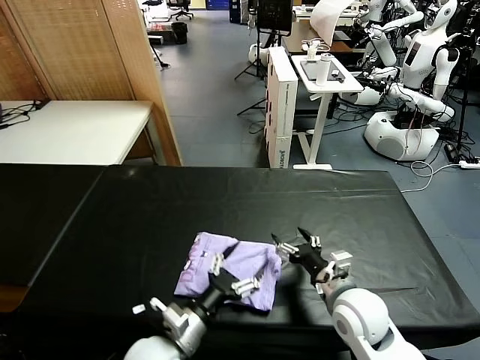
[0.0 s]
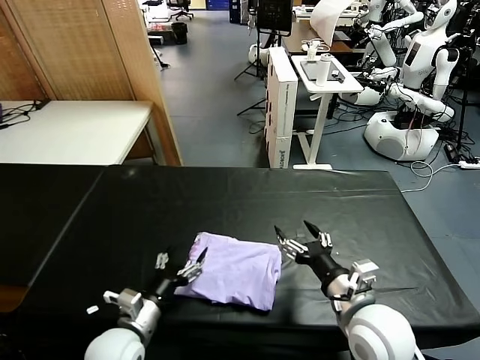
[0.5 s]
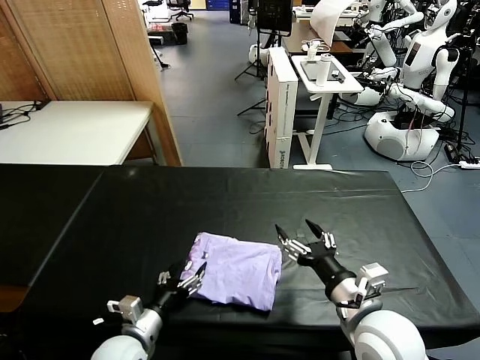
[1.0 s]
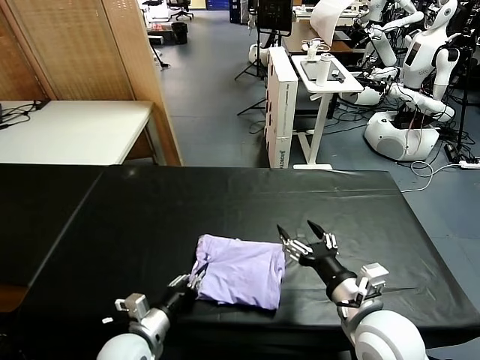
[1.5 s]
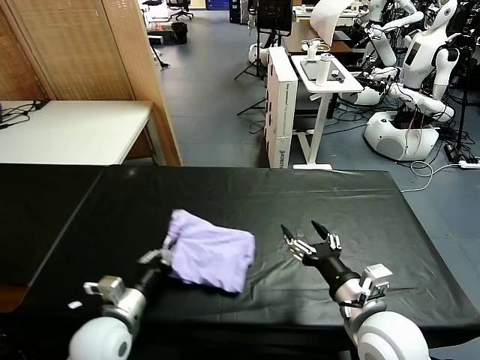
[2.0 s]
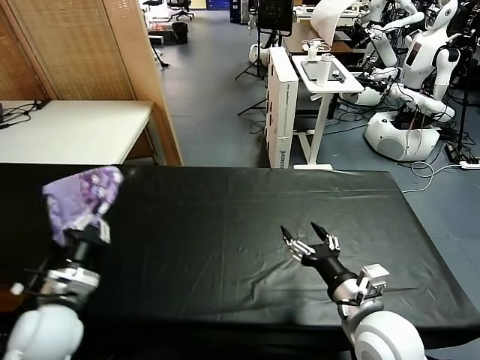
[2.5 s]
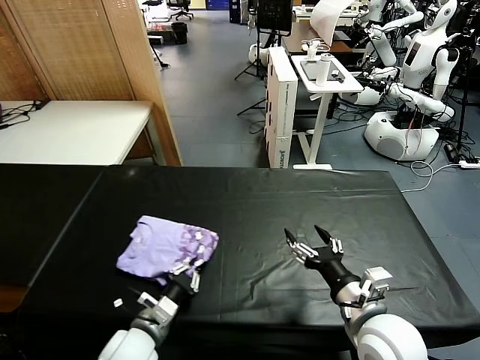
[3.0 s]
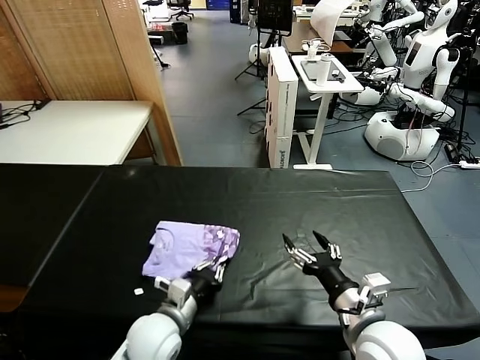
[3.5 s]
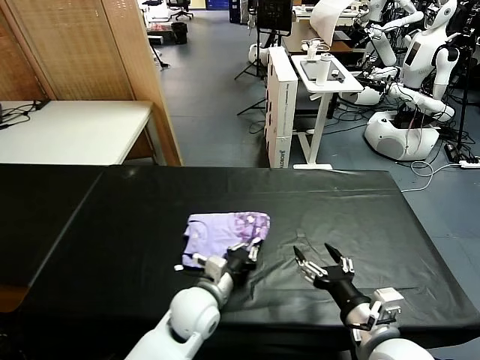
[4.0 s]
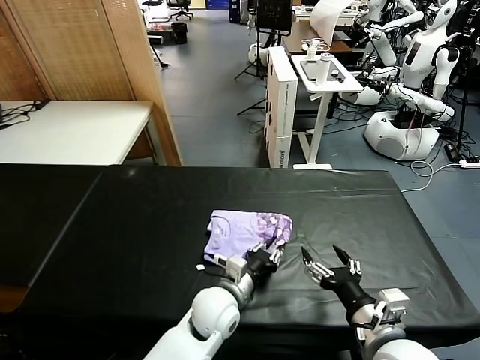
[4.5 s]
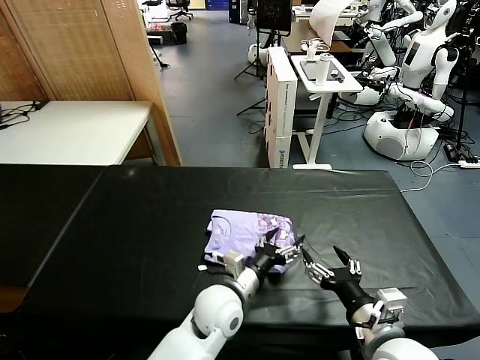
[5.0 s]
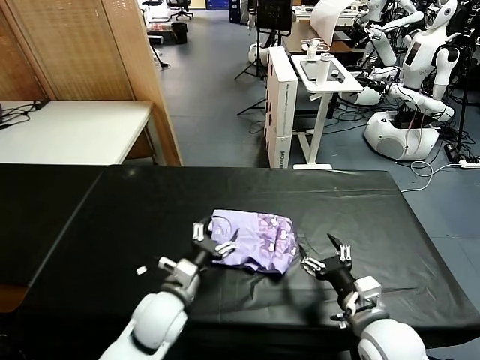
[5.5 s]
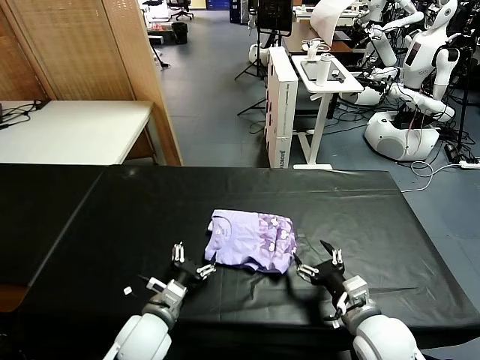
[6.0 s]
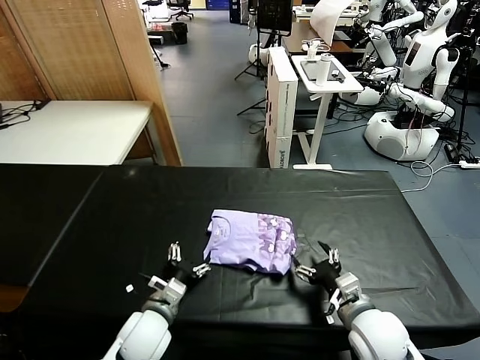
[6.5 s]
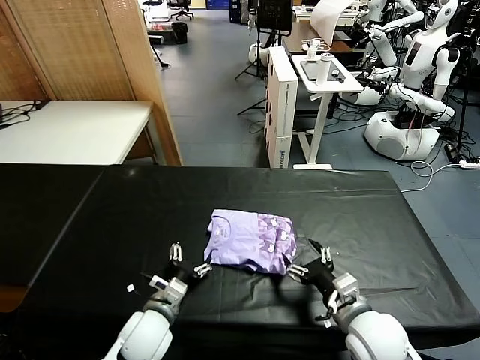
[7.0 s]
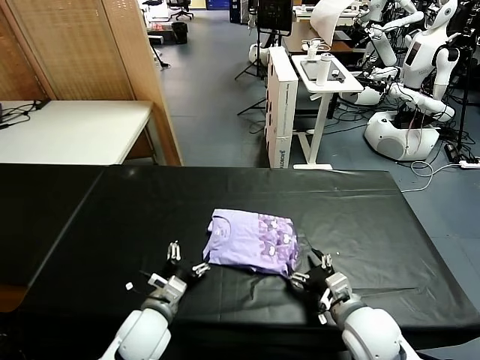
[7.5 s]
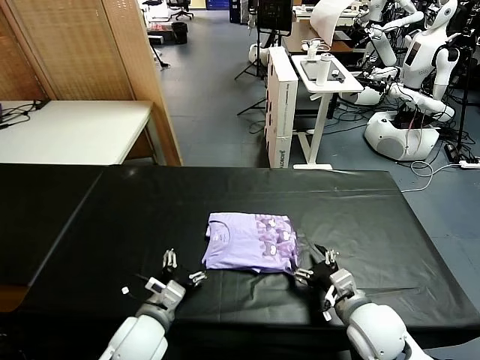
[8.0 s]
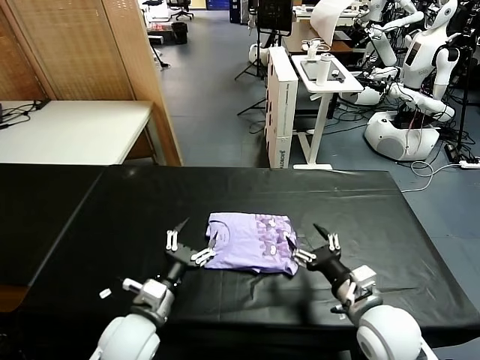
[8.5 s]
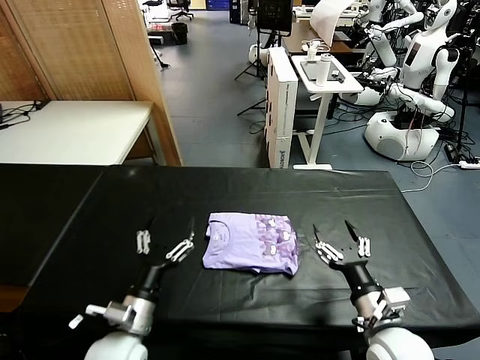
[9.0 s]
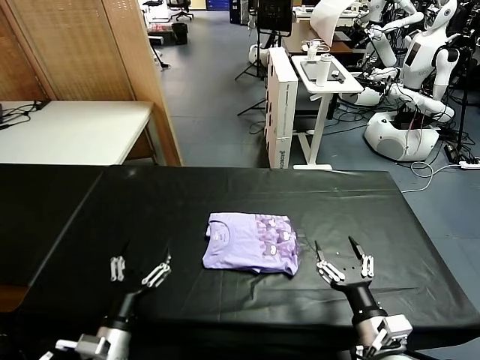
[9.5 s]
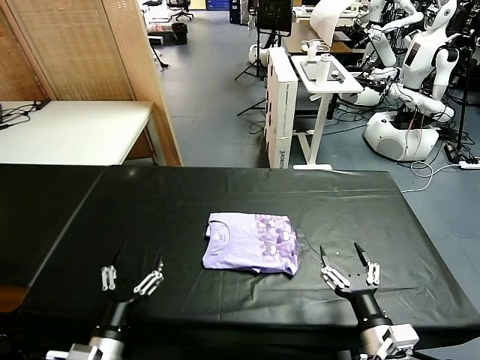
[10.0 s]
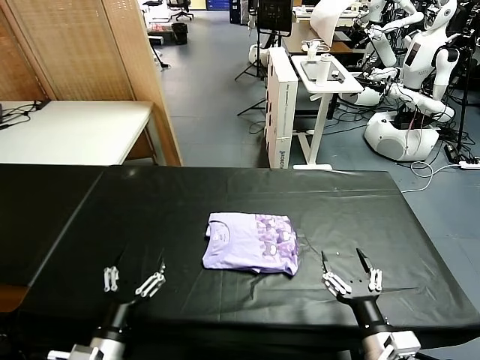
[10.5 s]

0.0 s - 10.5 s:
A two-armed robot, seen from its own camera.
Task of the whole recording: fold and organize the clothes.
Step, 0.5 s - 8.0 s: Flip the folded clothes over with left gripper.
0.0 s - 2.0 s: The left gripper goes some 10 cm to the left, and closes. The right gripper shifts about 10 cm upward and backward.
2.0 s - 4.0 s: The left gripper moves to the right and forward, approximately 15 cm.
4.0 s - 6.5 s: The right gripper moves downward and forward, roughly 10 cm, while the left gripper goes approximately 10 cm to the left, and opens up.
6.5 s - 8.5 s: The left gripper shifts some 5 cm upward.
8.5 s - 10.5 s: The left gripper shifts roughly 10 cm backward and to the left. The right gripper moves backward, approximately 10 cm.

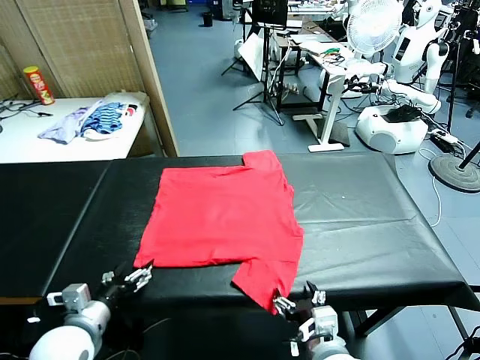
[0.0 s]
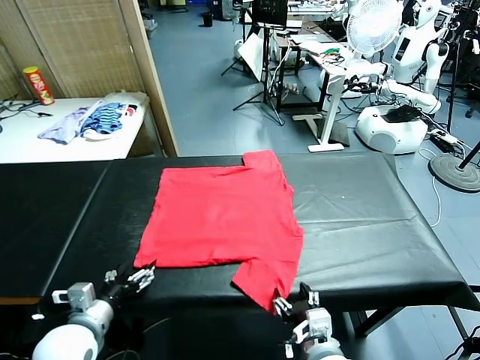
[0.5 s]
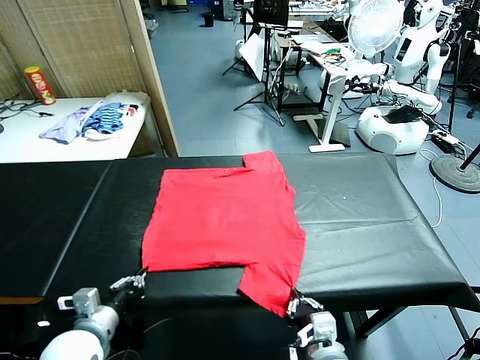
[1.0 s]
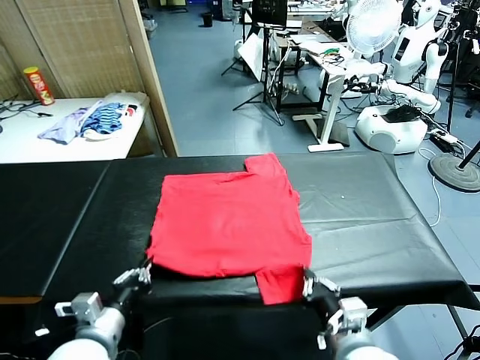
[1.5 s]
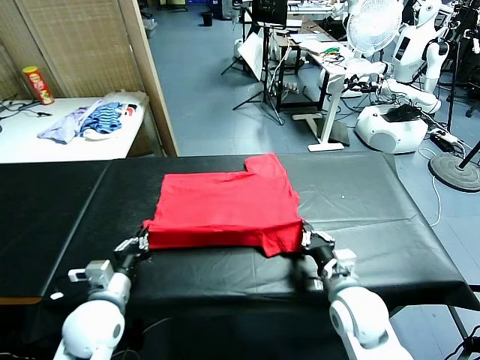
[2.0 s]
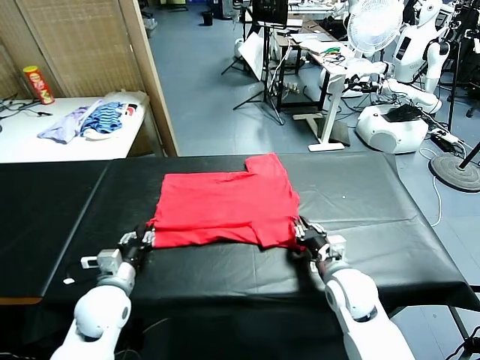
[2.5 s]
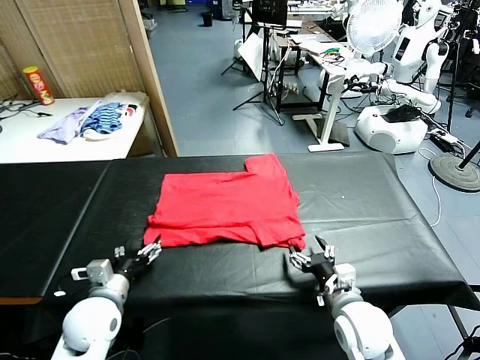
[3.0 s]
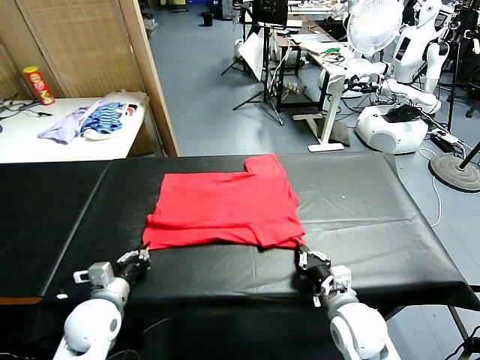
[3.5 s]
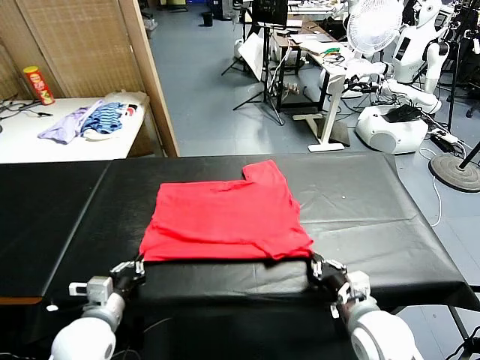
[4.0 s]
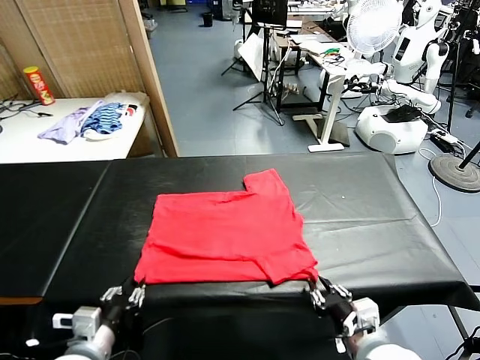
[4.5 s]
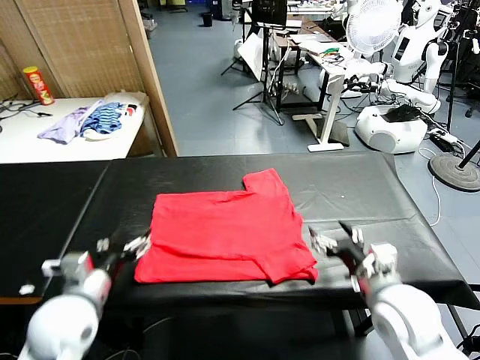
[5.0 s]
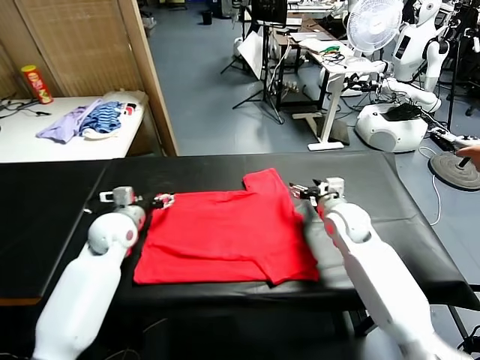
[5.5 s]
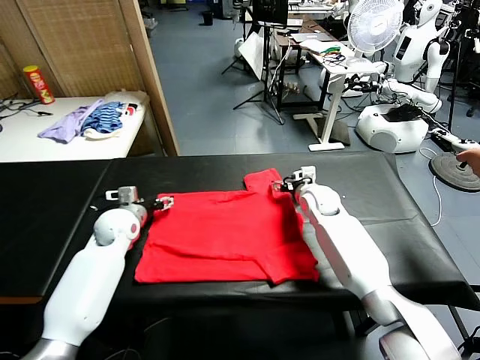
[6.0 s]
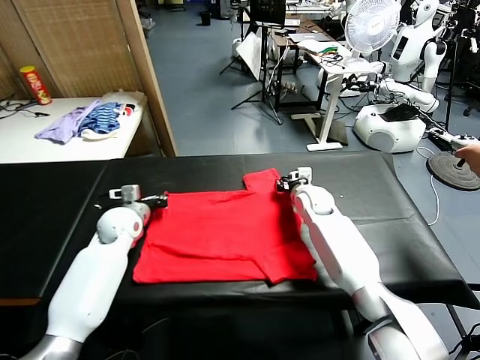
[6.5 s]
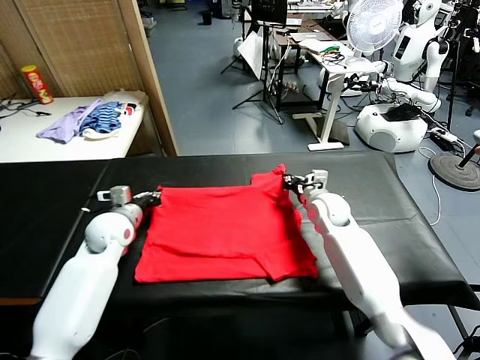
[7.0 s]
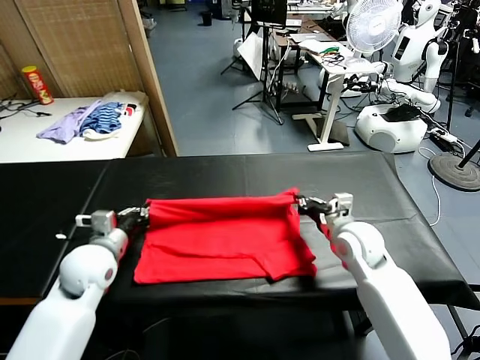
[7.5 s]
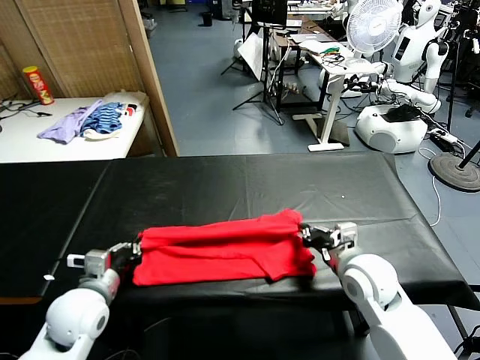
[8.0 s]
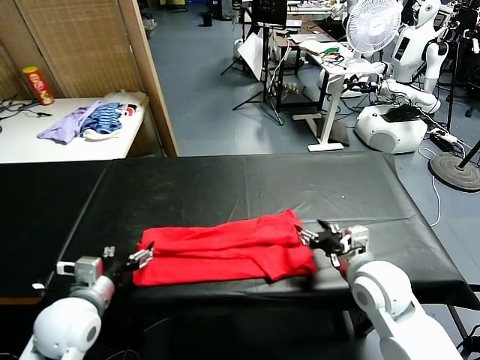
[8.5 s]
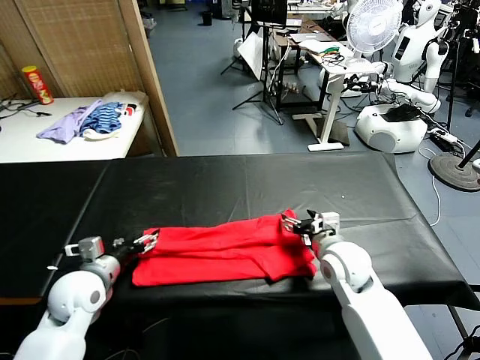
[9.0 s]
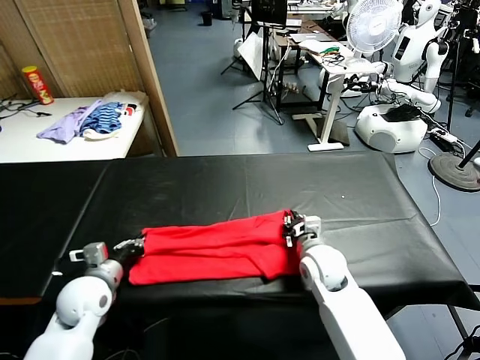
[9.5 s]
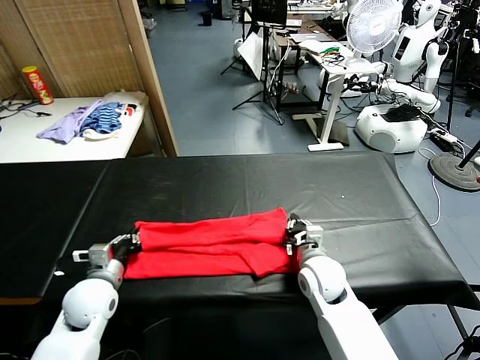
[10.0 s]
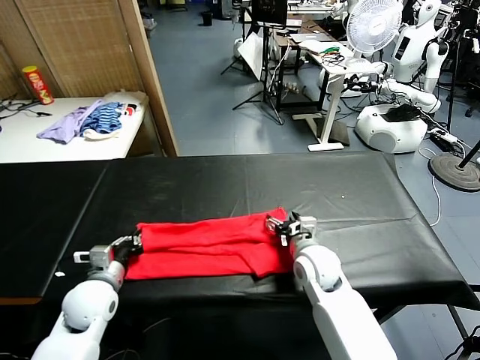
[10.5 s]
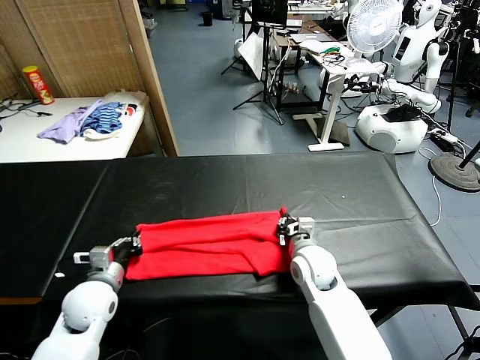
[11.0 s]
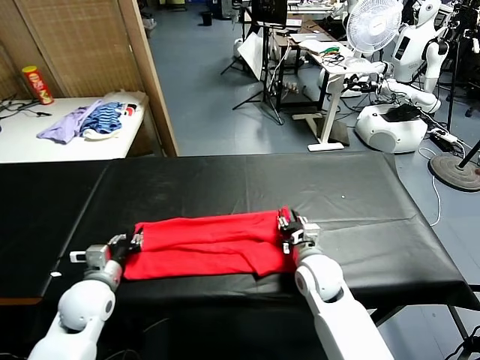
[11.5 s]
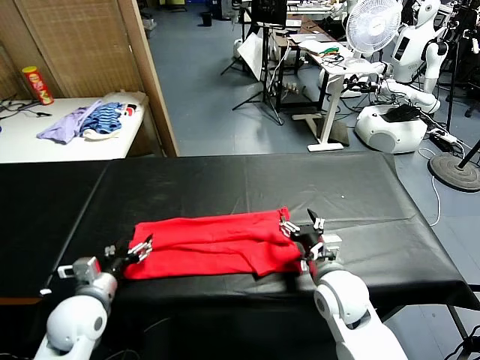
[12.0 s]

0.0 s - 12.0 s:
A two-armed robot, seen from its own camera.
Task of the whole recording: fold and organize the clothes.
Step, 0.0 s - 0.5 s: use both grippers simultaneously to clamp the lower edge of the clothing fabric.
Step, 1.0 s - 2.5 s: use both grippers to drag the lower edge of the fabric forward and fold it over the upper edge.
Step, 3.0 s - 4.5 s: Drag the clothes downward with both gripper.
Step, 5.0 s - 6.5 s: use both grippers simultaneously to clamp the upper edge of the clothing fabric.
Step, 7.0 s - 8.0 s: use both grippers to drag the upper edge of the fabric backward and fold it over the lower edge.
2.0 s - 4.0 s: The left gripper moves backward, roughly 5 cm, and opens and closes again. The right gripper shifts roughly 15 cm backward, and opens and closes again.
4.0 s - 6.0 s: Both grippers move forward, approximately 30 cm. The left gripper opens; the right gripper opens up.
6.0 s - 8.0 s: Both grippers move backward, about 25 cm. The left gripper closes; the right gripper closes its fingers.
8.0 s - 10.0 s: The right gripper goes approximately 10 cm to the left, downward and forward, and opens and closes again. Meanwhile the left gripper ends up roughly 5 cm from where it was, and opens, then closes again.
10.0 s - 12.0 s: The right gripper heads backward, covering about 5 cm, and opens, while the left gripper opens up.

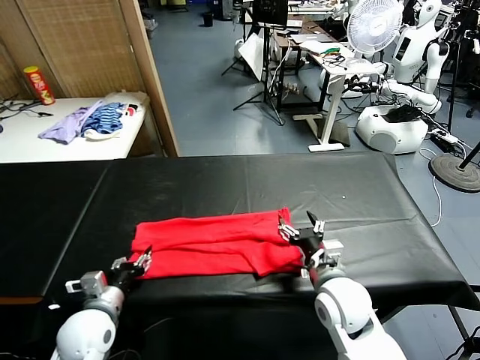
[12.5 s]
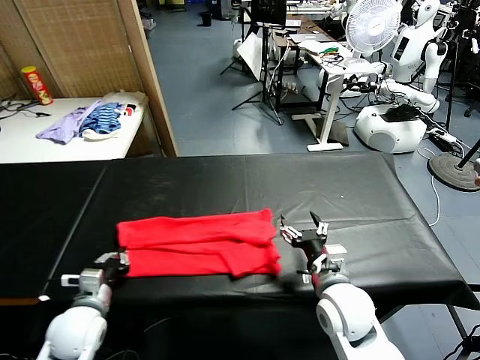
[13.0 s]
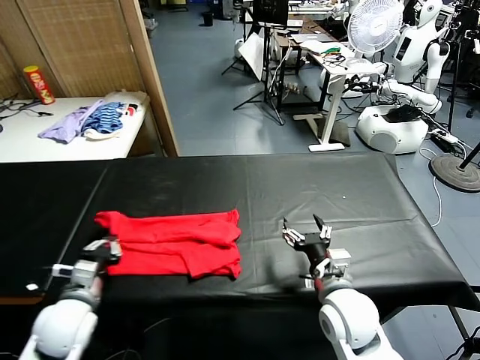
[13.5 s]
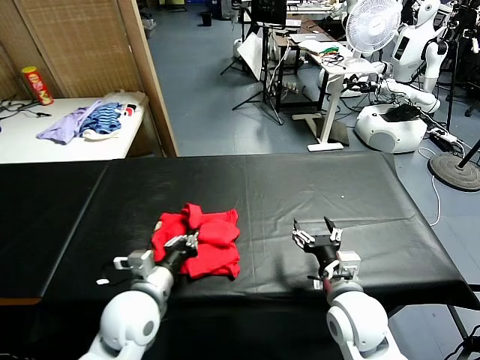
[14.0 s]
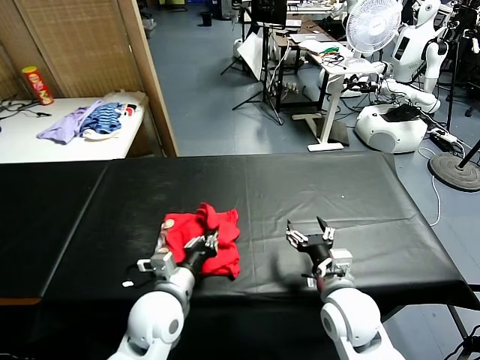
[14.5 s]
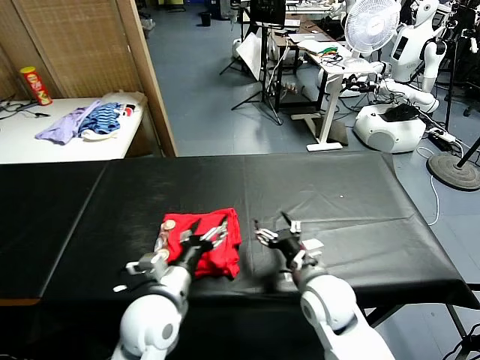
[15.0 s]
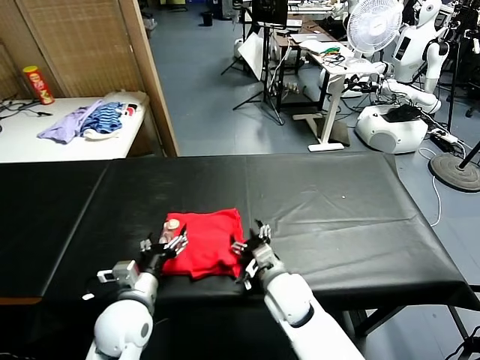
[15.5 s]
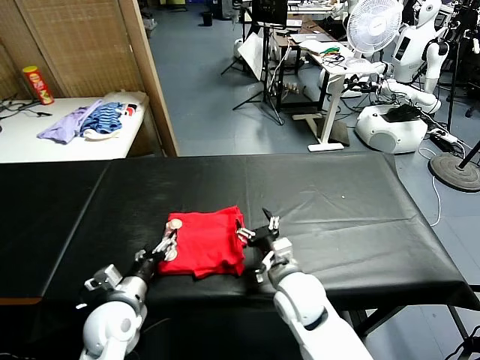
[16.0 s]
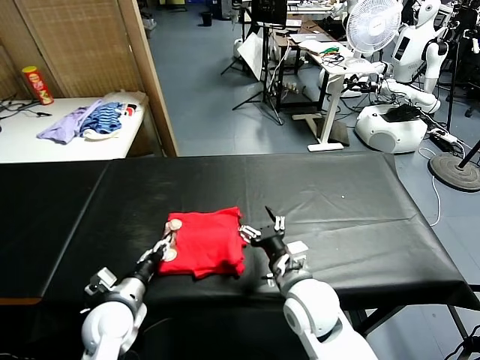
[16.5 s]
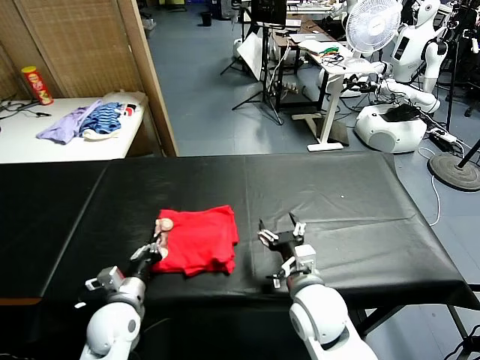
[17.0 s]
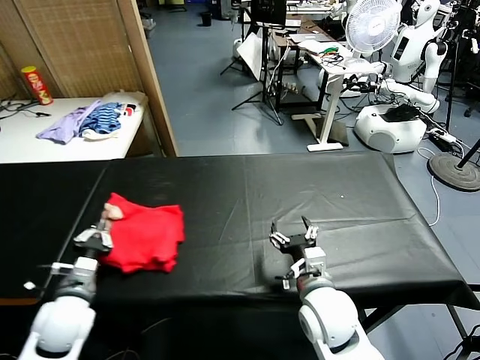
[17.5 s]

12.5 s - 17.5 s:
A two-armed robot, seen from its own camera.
Task of the whole recording: fold and organize the clothes.
Step, 13.0 s - 14.5 s: use the left gripper to drag the left edge of the fabric to the left and folds it over the right edge.
12.5 s - 15.0 s: The left gripper heads to the right and upward, covering roughly 15 cm, and opens.
15.0 s - 17.5 s: The left gripper heads to the left, covering roughly 20 cm, and closes its fingers.
